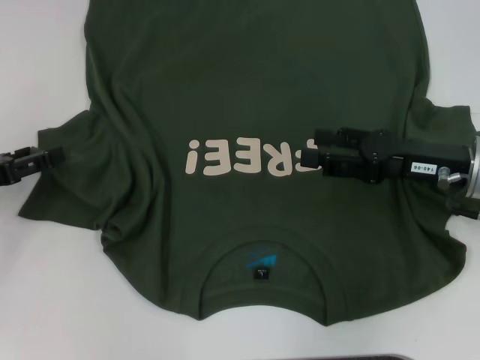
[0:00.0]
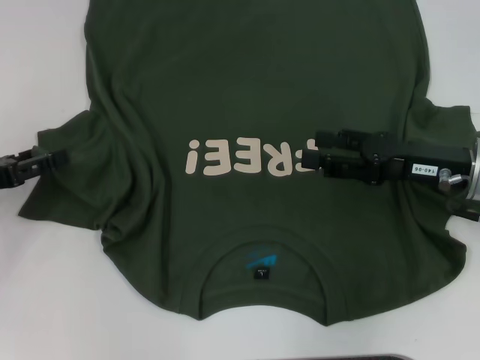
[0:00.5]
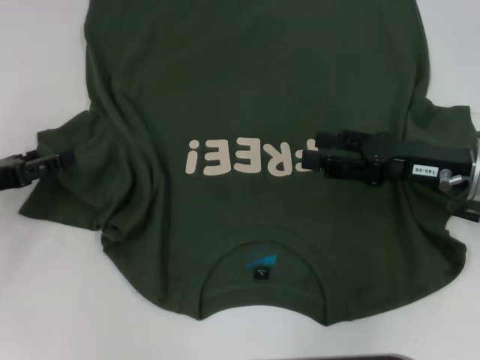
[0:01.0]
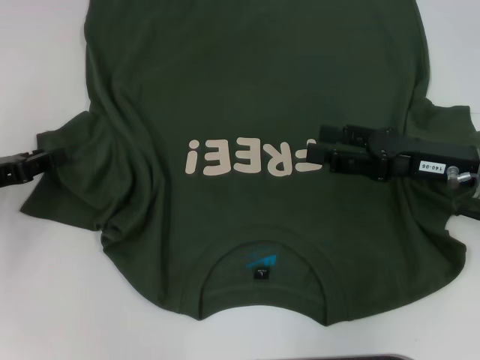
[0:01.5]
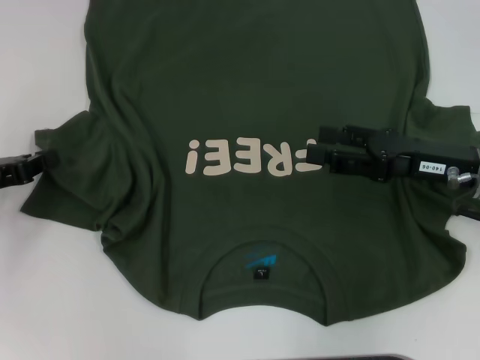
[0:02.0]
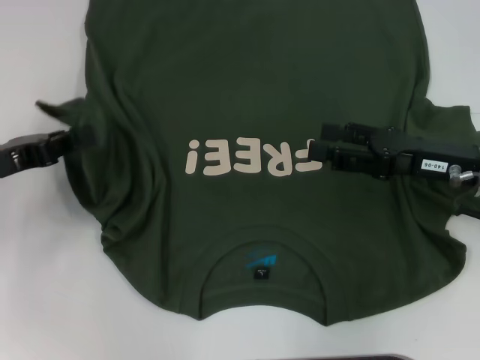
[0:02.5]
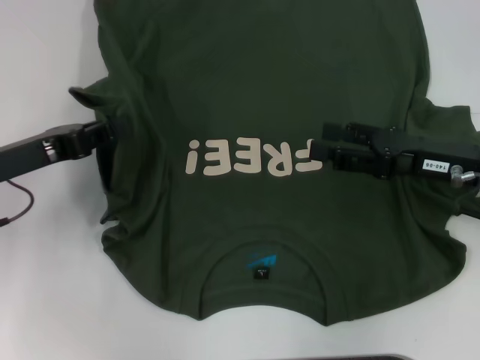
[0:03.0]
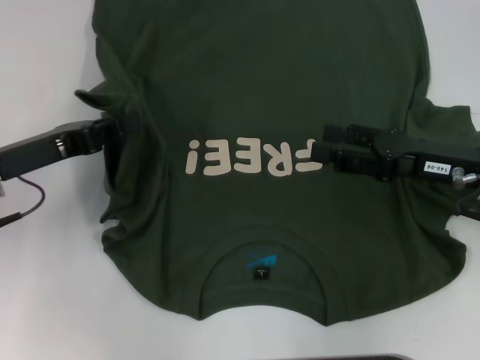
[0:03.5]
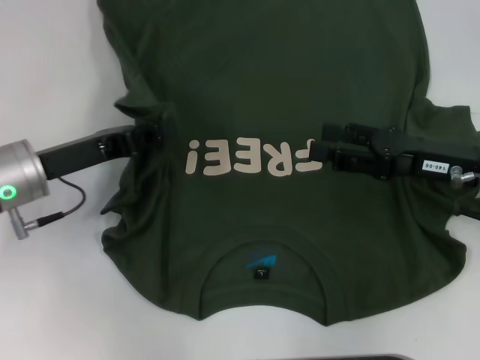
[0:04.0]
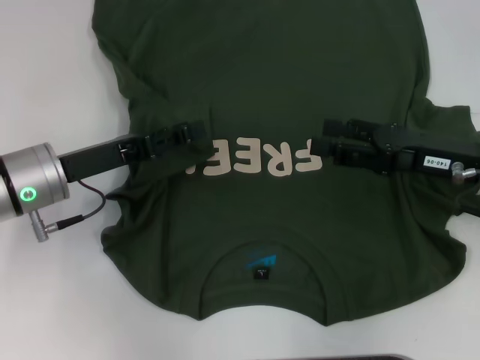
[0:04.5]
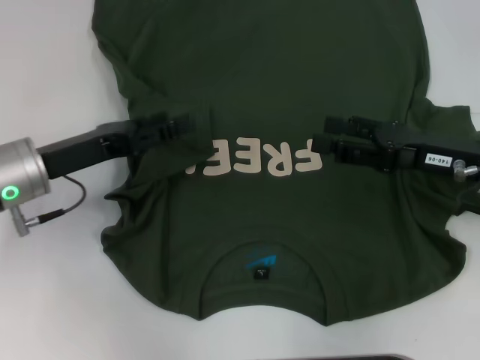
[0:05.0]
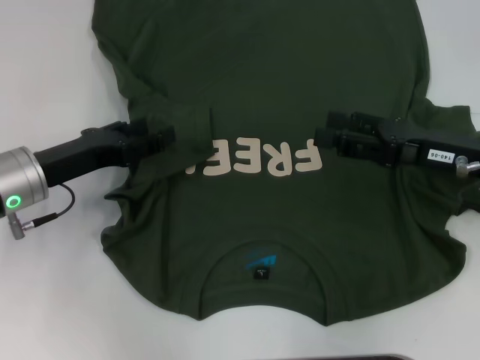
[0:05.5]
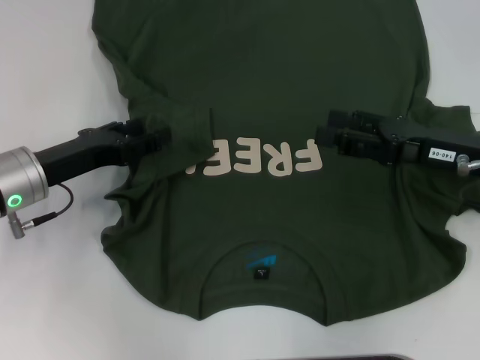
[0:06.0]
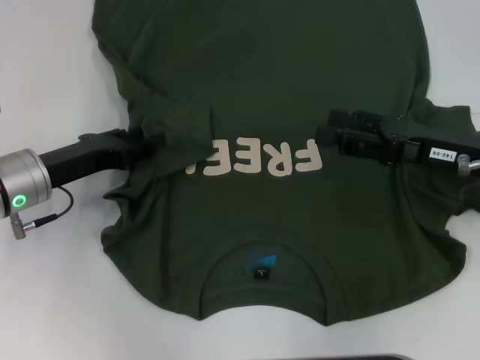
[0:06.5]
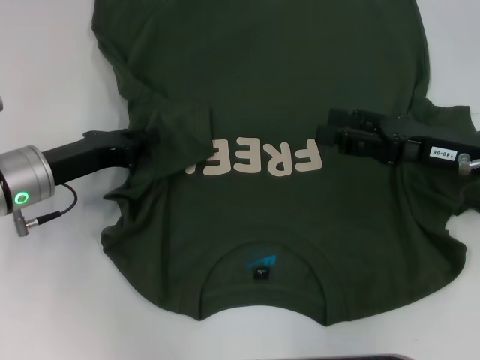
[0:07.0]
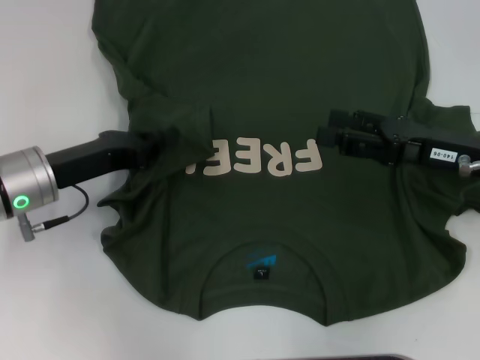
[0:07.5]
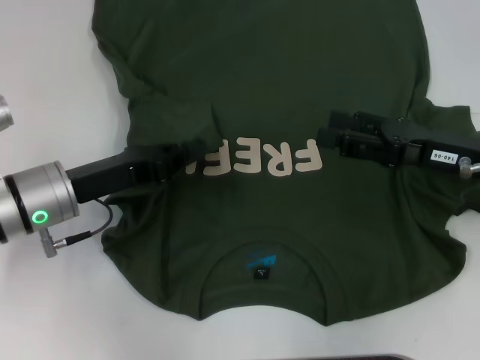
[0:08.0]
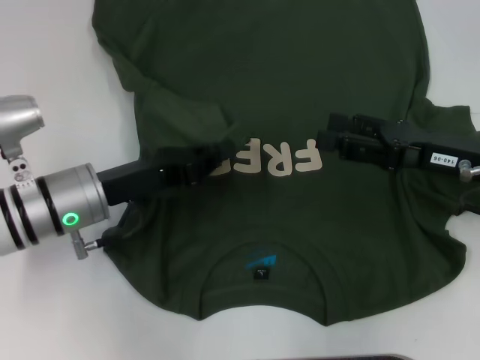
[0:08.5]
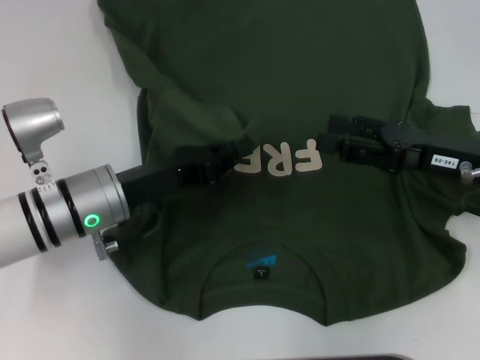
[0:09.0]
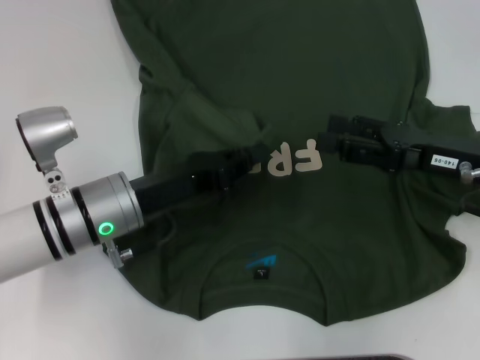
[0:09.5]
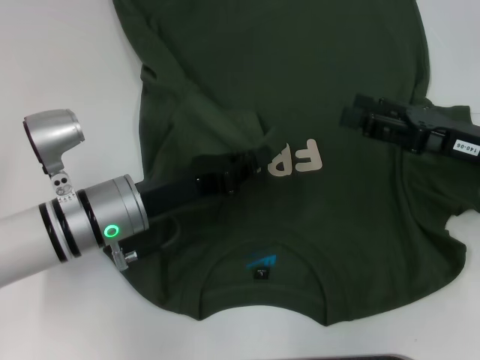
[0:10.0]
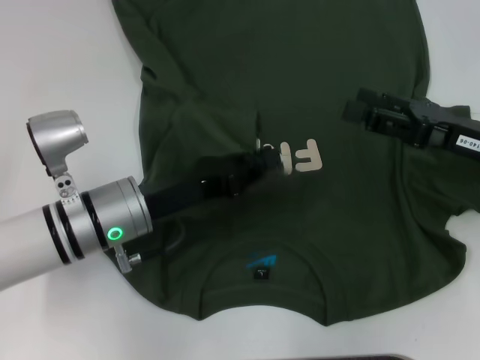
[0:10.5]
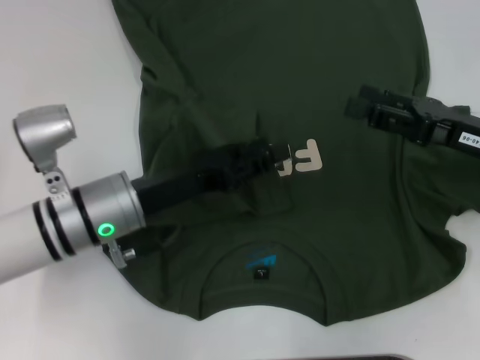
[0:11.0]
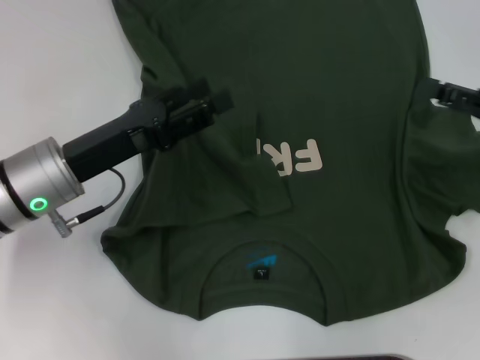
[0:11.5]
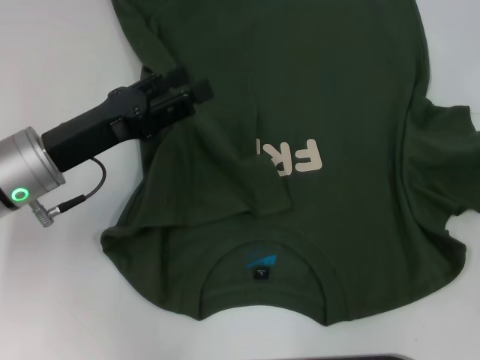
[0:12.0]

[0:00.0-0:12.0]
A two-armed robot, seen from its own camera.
Step, 0:00.0 to 0:11.0: Fold the bottom left sleeve with your left hand.
0:00.0 to 0:02.0: The left gripper closes.
0:02.0 to 0:04.0: The left gripper goes about 10 cm to the right.
0:04.0 to 0:06.0: The left gripper opens.
0:06.0 to 0:08.0: The left gripper closes its fingers.
0:08.0 to 0:10.0: The left gripper shifts roughly 5 cm to the right.
0:10.0 to 0:12.0: The left gripper is displaced to the left by approximately 5 cm, and opens up. Meanwhile the right gripper travels to the right and upward by some 15 cm.

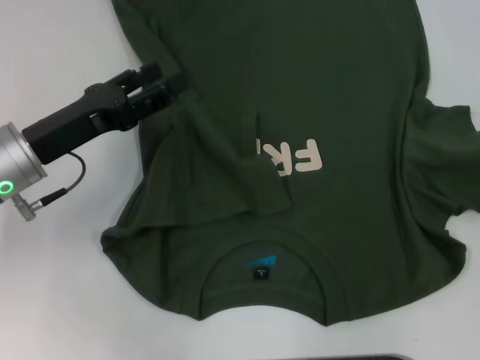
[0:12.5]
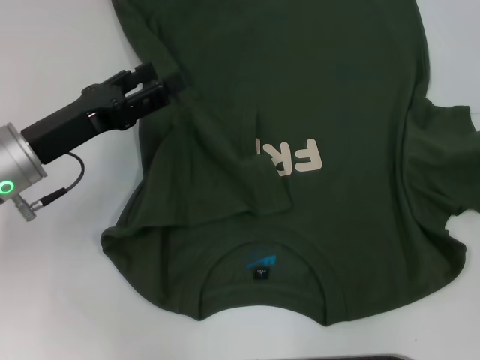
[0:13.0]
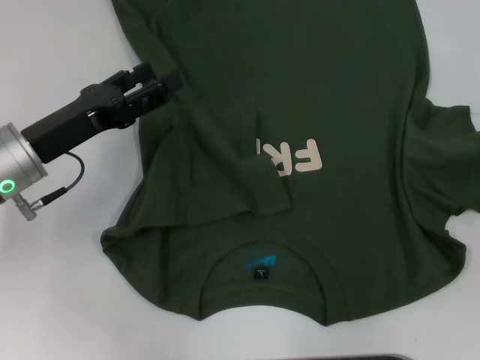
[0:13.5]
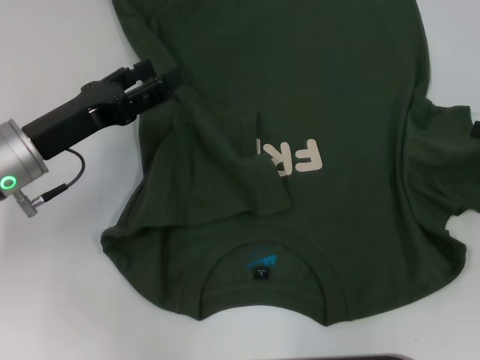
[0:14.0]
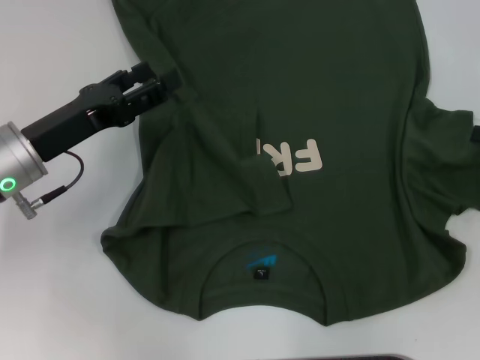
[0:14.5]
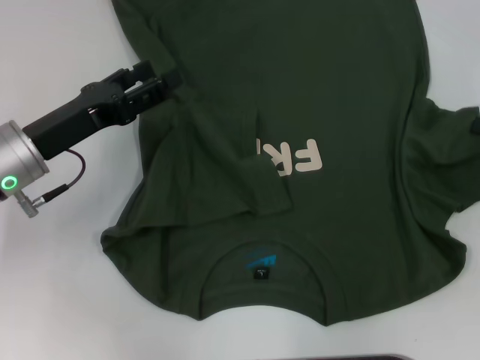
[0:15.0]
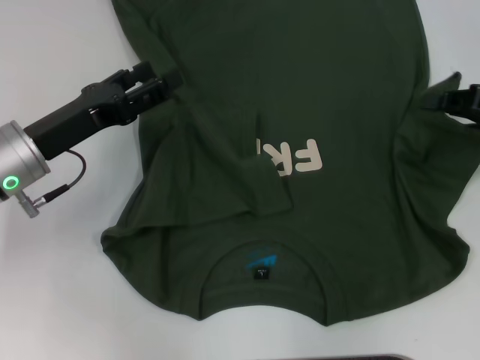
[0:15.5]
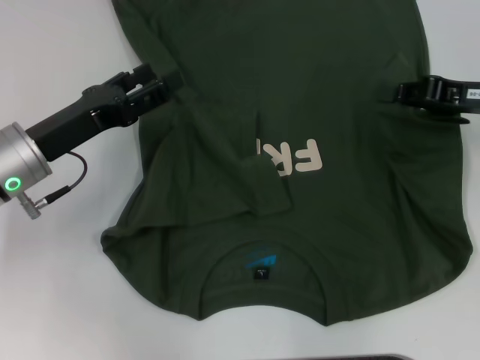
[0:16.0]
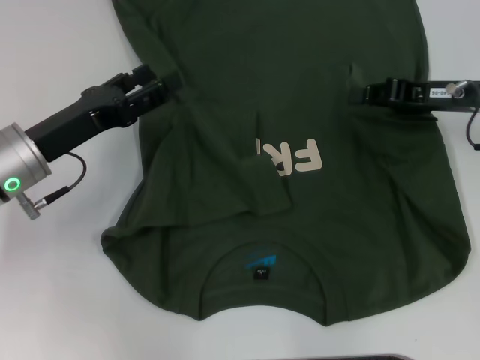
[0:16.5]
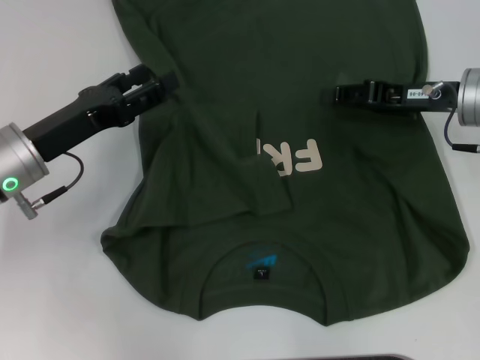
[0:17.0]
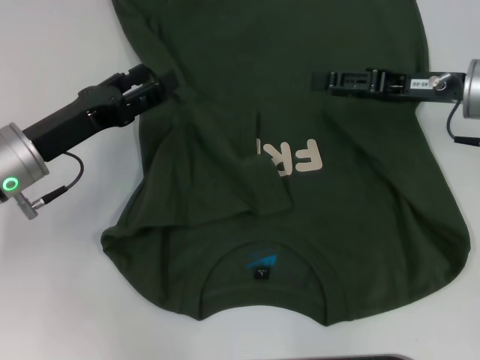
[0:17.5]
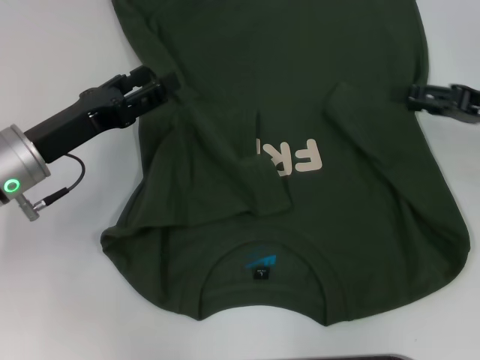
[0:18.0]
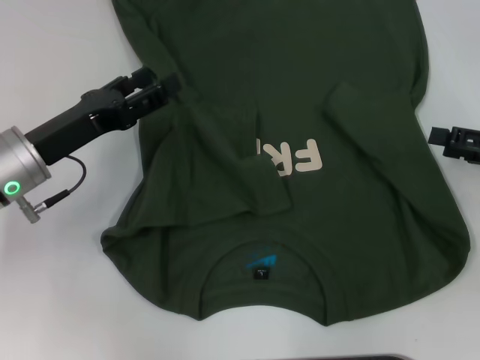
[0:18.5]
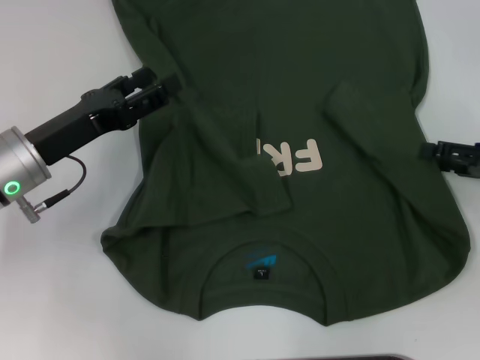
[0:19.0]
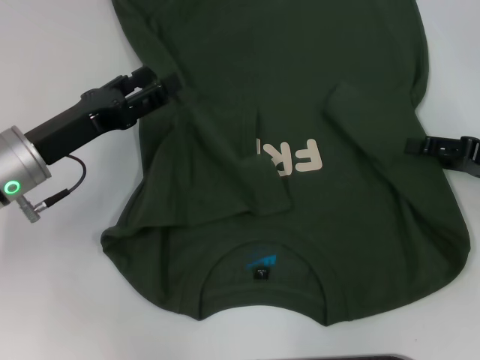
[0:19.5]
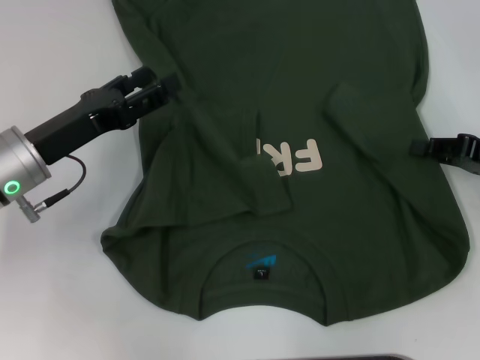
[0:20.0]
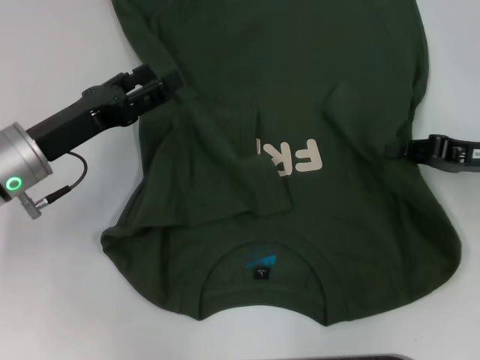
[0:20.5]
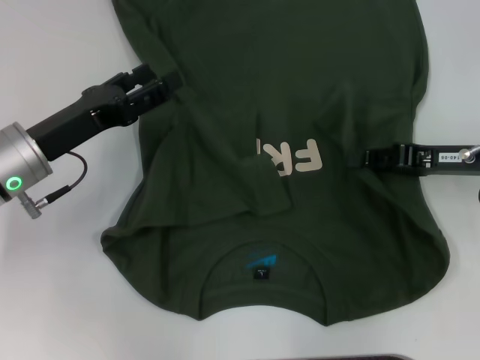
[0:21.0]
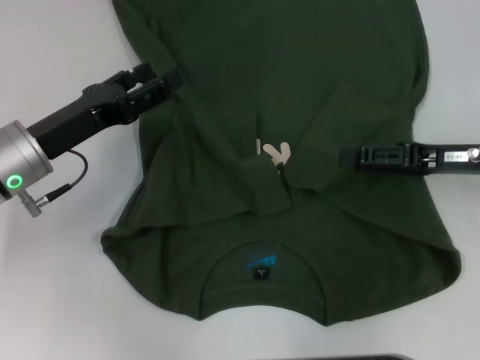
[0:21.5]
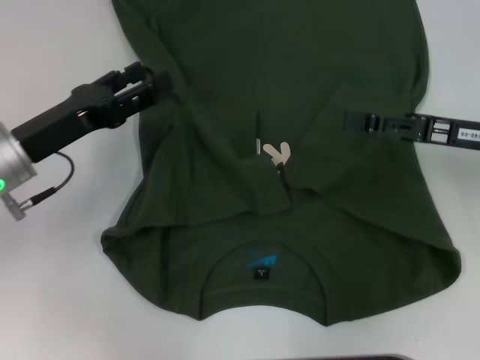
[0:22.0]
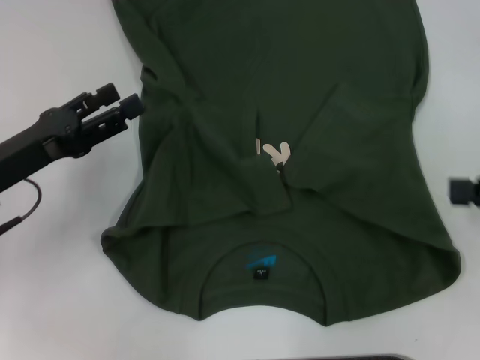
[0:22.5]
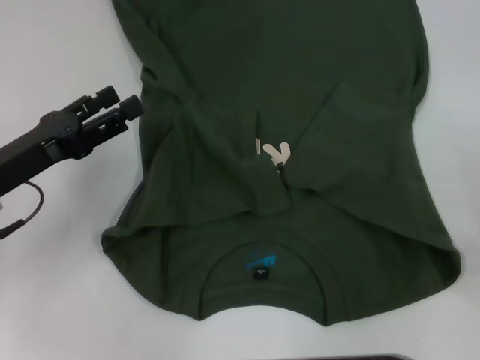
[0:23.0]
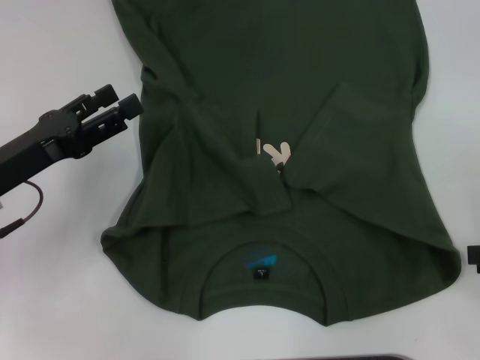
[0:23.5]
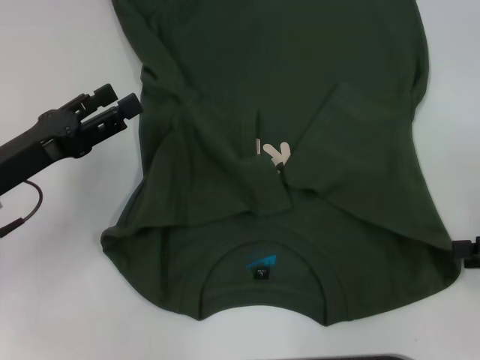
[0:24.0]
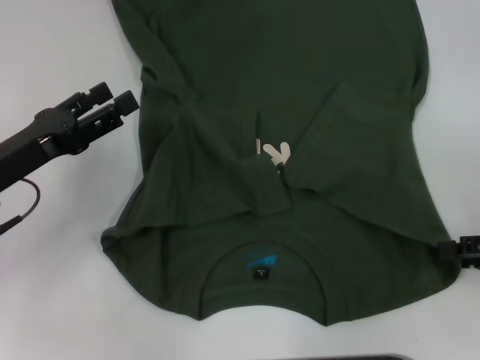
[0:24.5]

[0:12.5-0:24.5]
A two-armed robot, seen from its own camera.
Step, 0:12.5 to 0:21.5: Fold the bottom right sleeve with your right hand.
0:14.5 to 0:16.5: The right gripper is displaced to the left and forward by approximately 15 cm, and closes up.
0:16.5 to 0:18.5: The right gripper travels to the right and backward by some 10 cm, and opens its fingers.
0:18.5 to 0:20.5: The right gripper shifts by about 5 cm, and closes up.
0:20.5 to 0:22.5: The right gripper heads to the right, covering some 5 cm, and opens its fingers. Meanwhile the left gripper moves roughly 5 cm.
0:22.5 to 0:24.5: There are only small adjustments of the grippers.

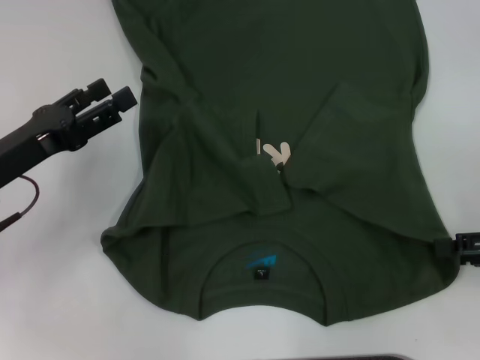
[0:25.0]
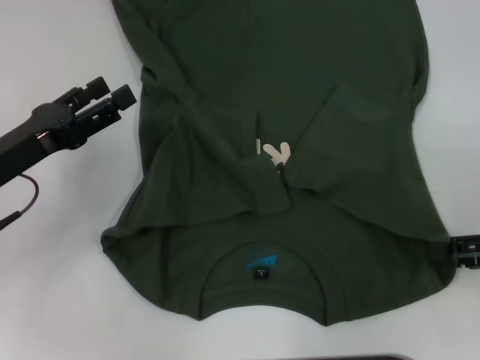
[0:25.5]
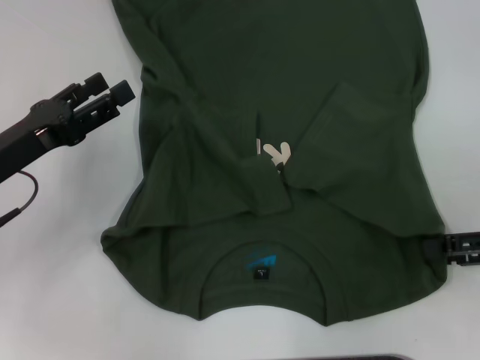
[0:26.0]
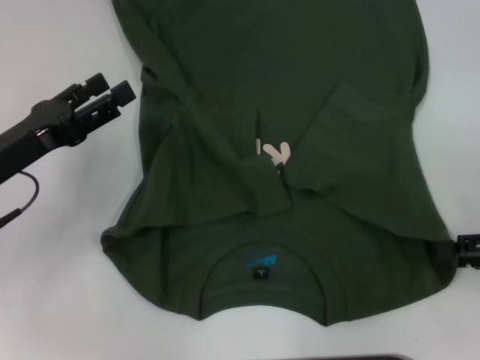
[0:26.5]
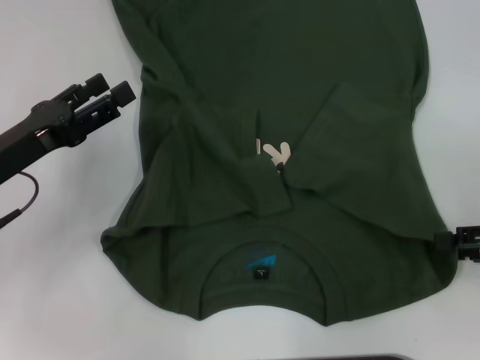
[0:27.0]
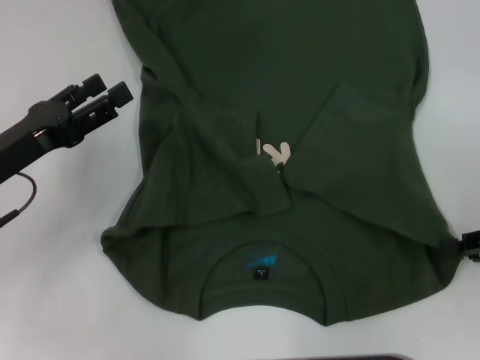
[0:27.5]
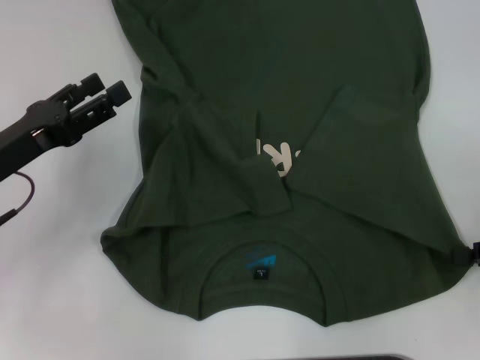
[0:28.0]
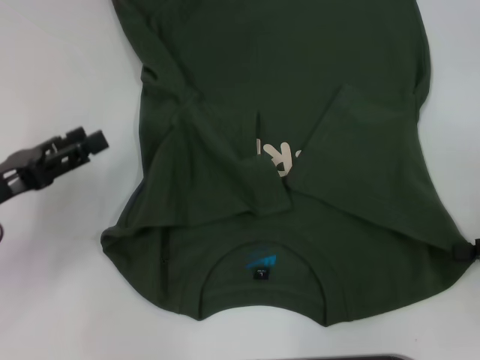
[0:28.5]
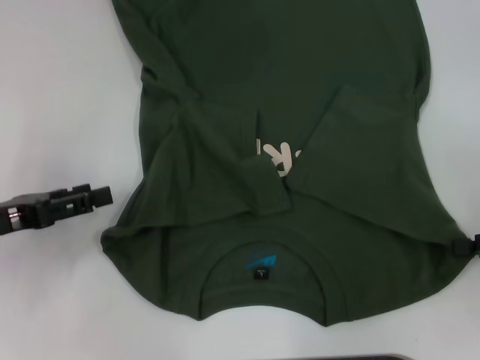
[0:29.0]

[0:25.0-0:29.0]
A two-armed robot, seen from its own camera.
Step, 0:25.0 to 0:28.5: Grab the bottom right corner with your right hand.
0:25.0 to 0:27.0: The grippers make only small movements.
0:27.0 to 0:29.0: The right gripper closes, while the left gripper ends up approximately 5 cm from where it was.
